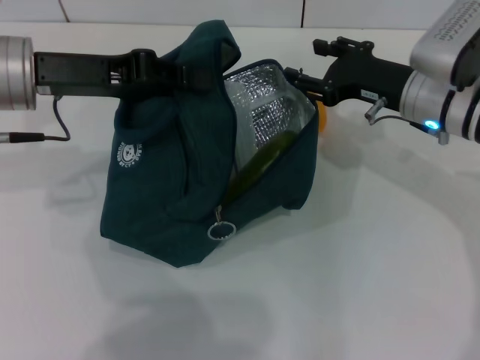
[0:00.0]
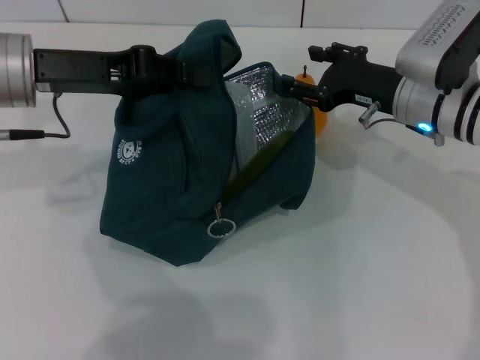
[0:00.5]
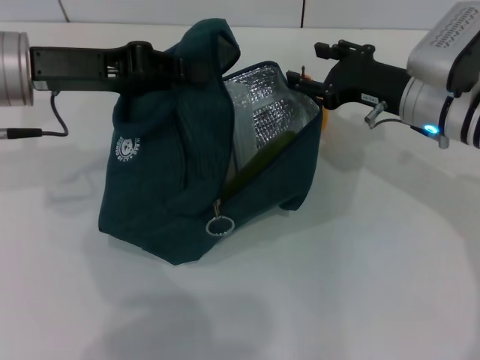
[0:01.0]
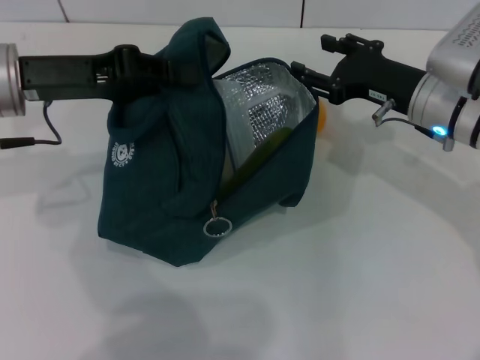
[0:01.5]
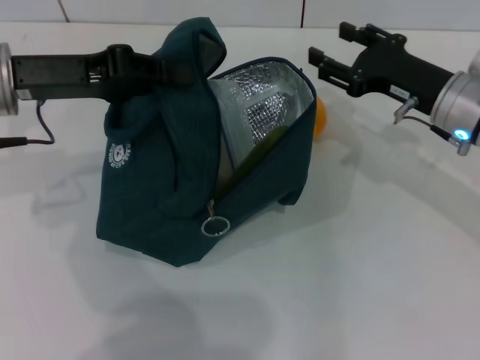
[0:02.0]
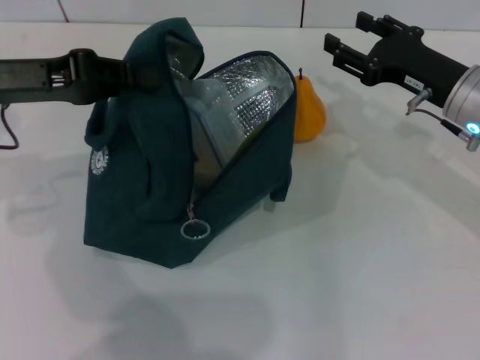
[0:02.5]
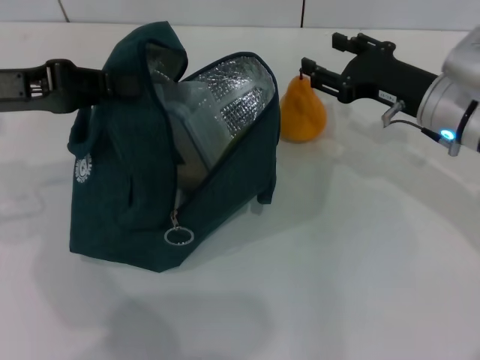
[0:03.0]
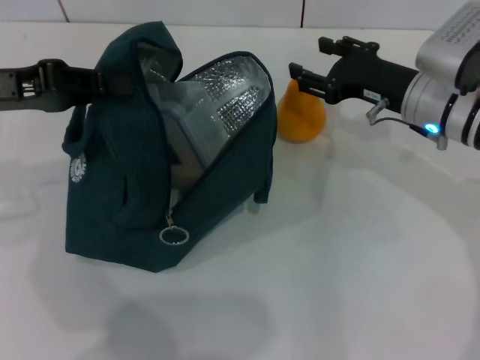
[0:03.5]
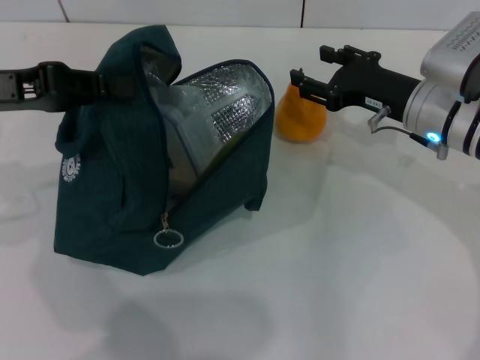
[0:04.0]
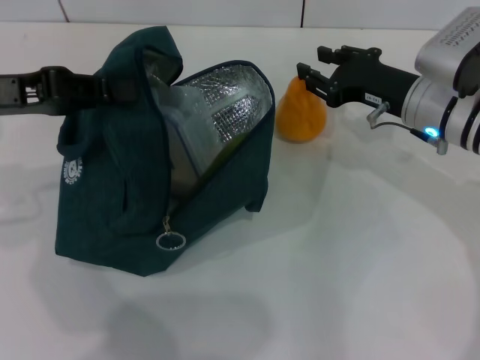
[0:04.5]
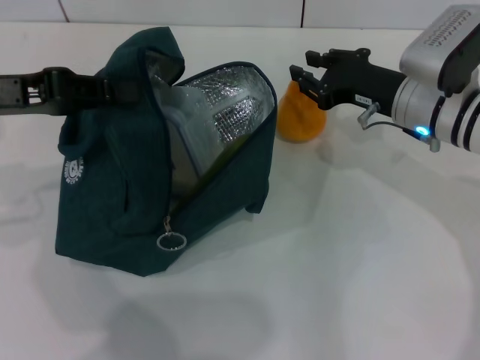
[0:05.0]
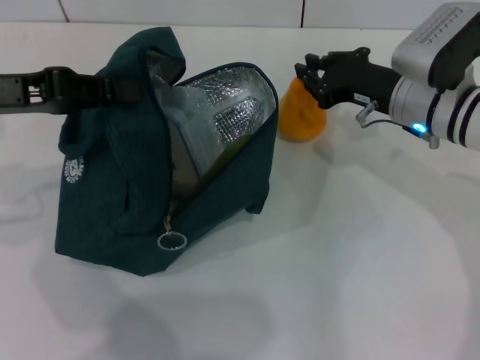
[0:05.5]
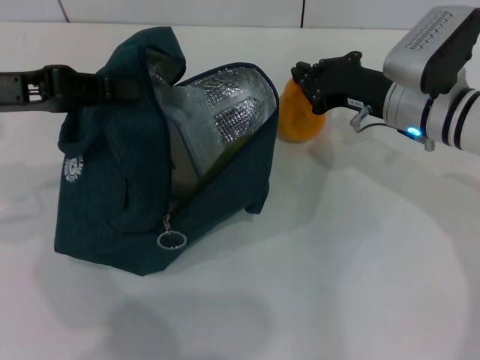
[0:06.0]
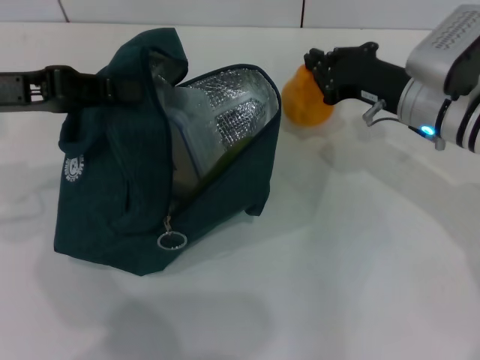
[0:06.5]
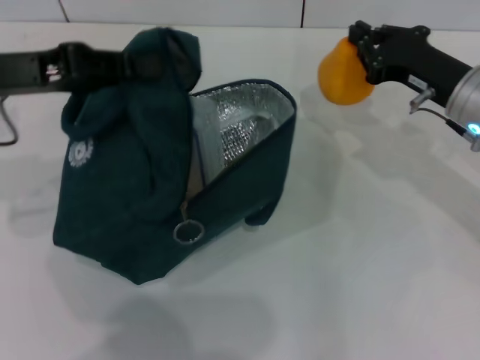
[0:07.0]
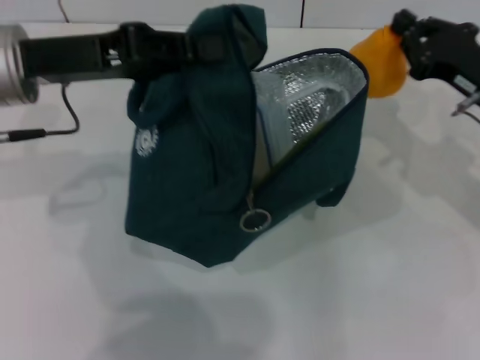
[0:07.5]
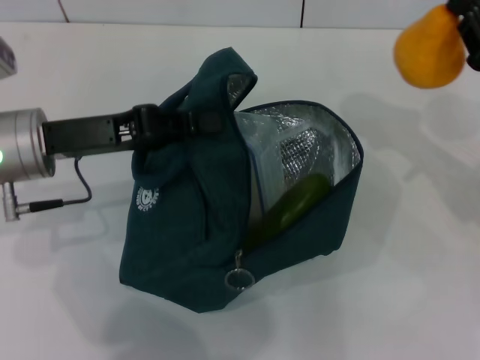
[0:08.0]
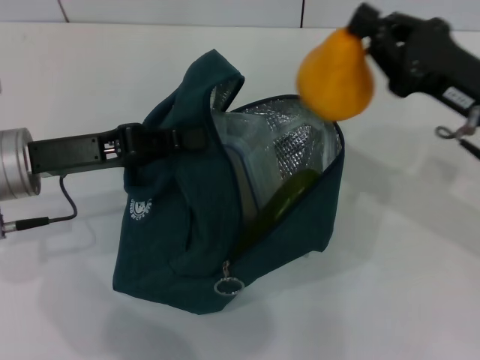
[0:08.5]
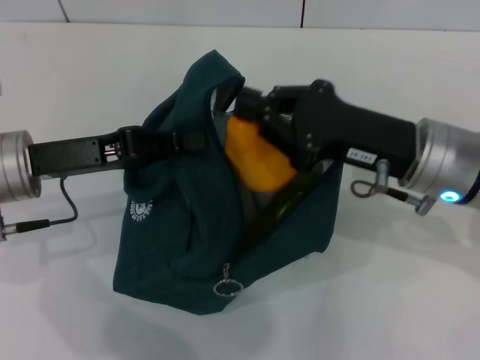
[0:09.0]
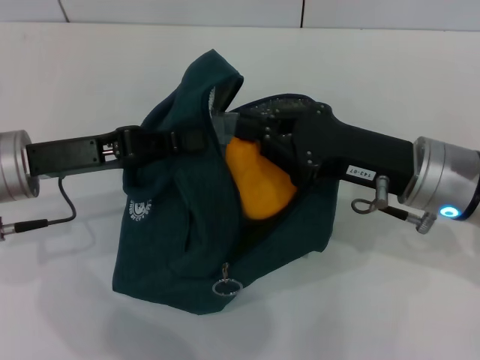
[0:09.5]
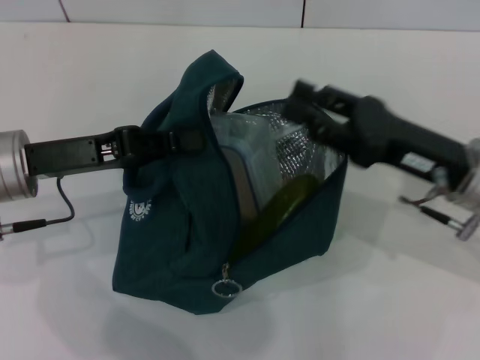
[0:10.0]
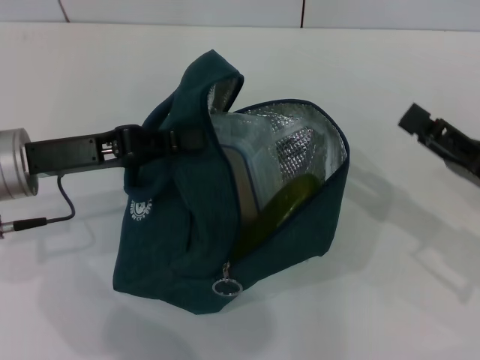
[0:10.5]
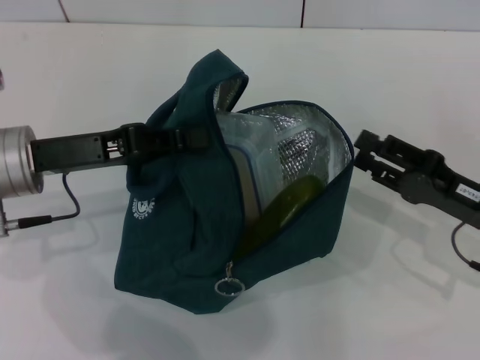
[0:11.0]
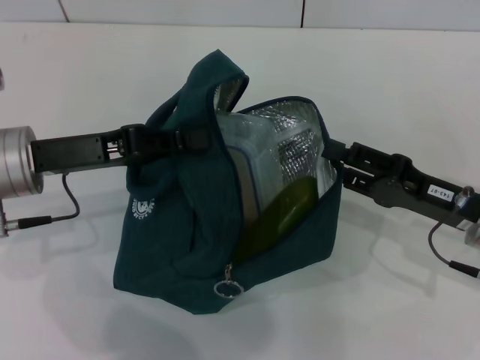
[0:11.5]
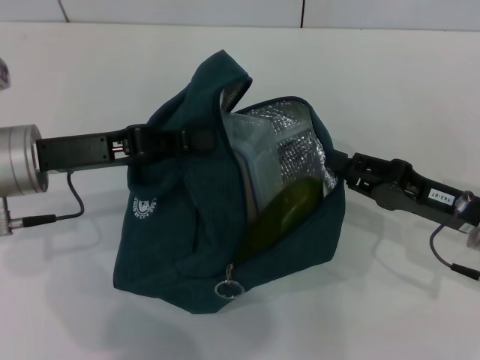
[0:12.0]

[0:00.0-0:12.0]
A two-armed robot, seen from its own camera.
Step, 0:00.0 to 0:06.0: Grab the pear with your right hand.
Step, 0:06.5 to 0:09.5: Secure the lunch bag with your left hand.
0:00.0 to 0:02.0: The grippers make only small movements.
0:02.0 to 0:04.0: The left gripper ends up about 5 cm from where it was.
0:04.0 to 0:06.0: The right gripper closes its fingers.
0:06.0 to 0:08.0: The left gripper goes about 10 cm to the right and downward. Meanwhile the right gripper heads to the right and backward, covering roughly 15 cm.
0:08.0 to 0:10.0: The right gripper travels to the left by approximately 10 cm.
0:10.0 to 0:12.0: The right gripper moves downward, some 5 cm.

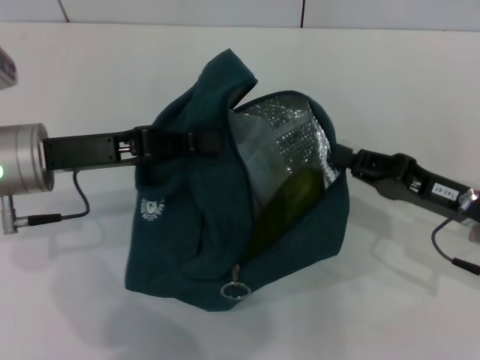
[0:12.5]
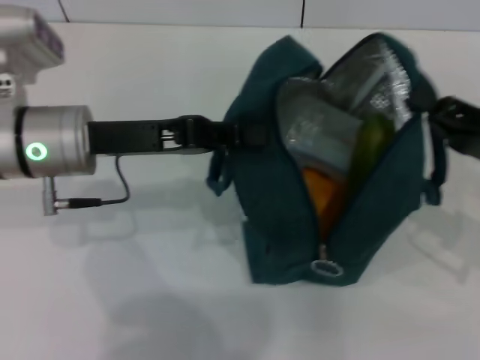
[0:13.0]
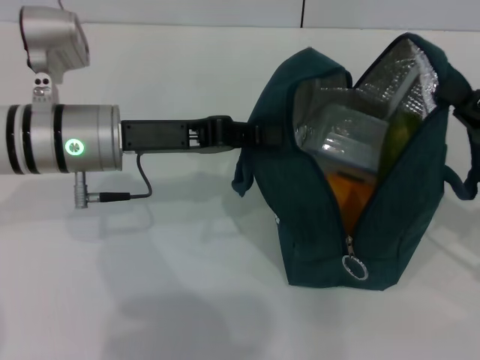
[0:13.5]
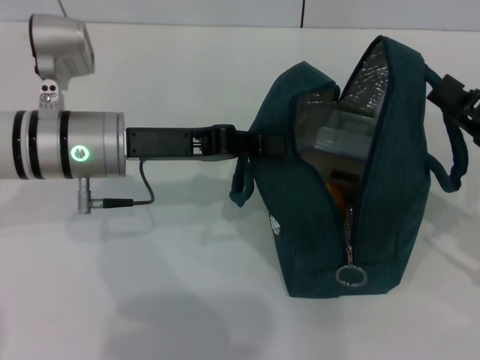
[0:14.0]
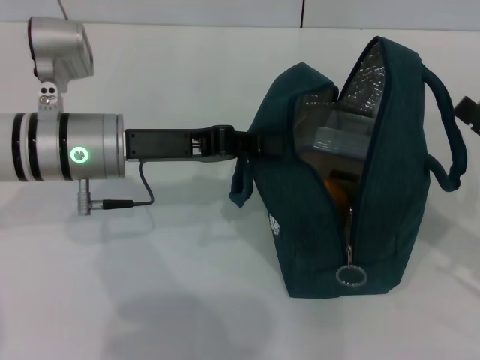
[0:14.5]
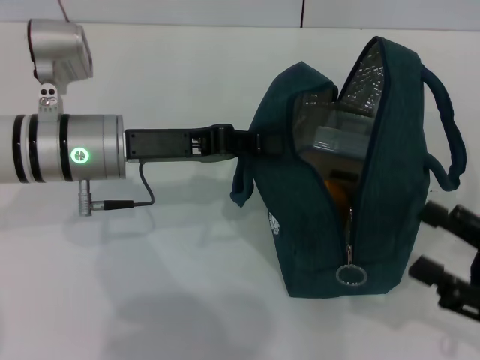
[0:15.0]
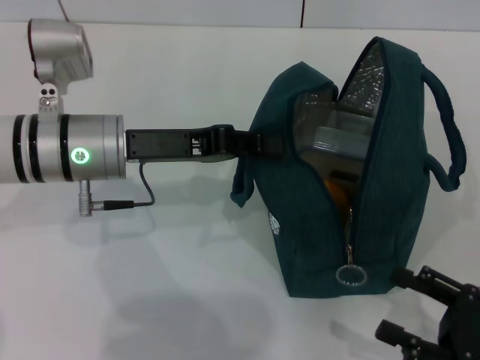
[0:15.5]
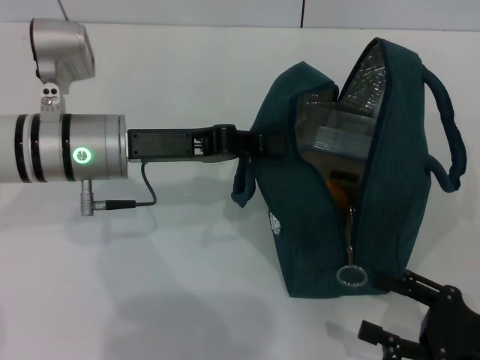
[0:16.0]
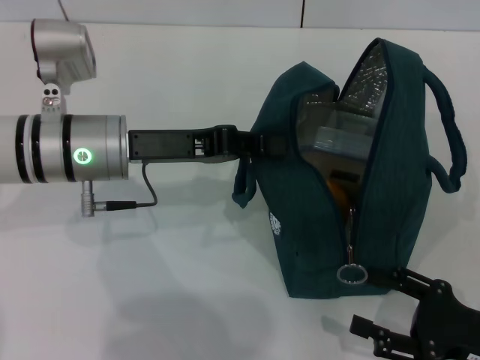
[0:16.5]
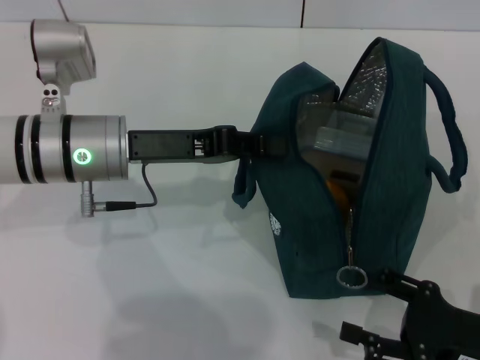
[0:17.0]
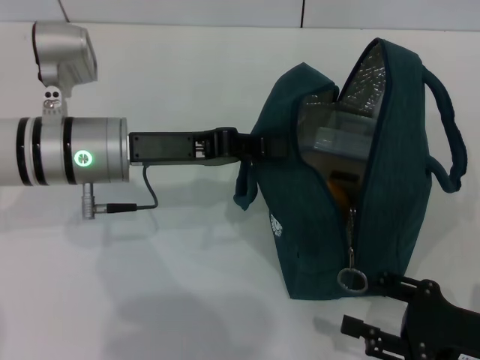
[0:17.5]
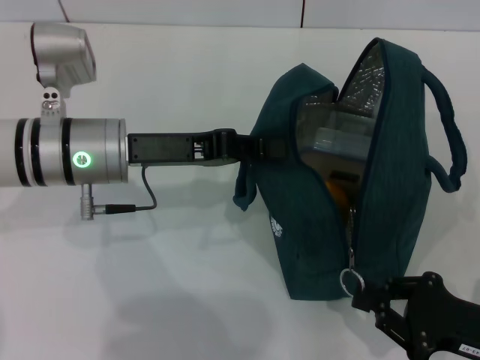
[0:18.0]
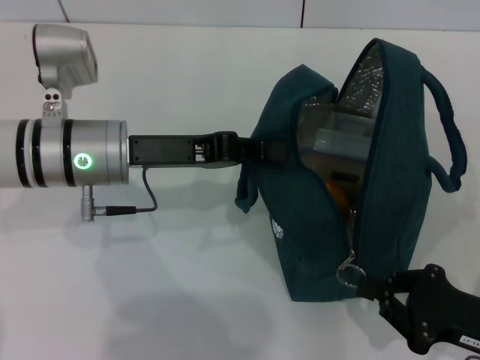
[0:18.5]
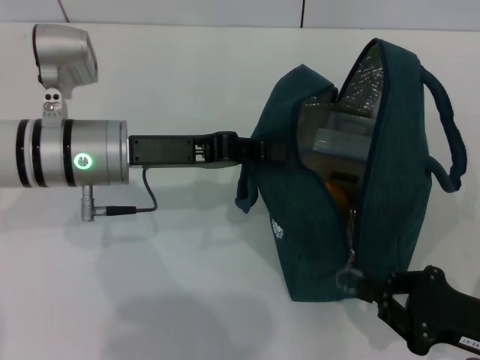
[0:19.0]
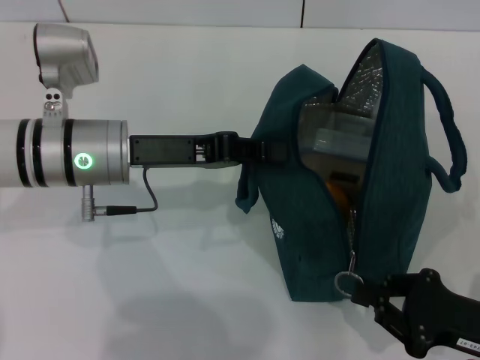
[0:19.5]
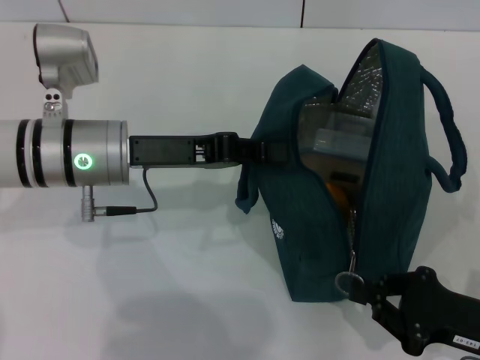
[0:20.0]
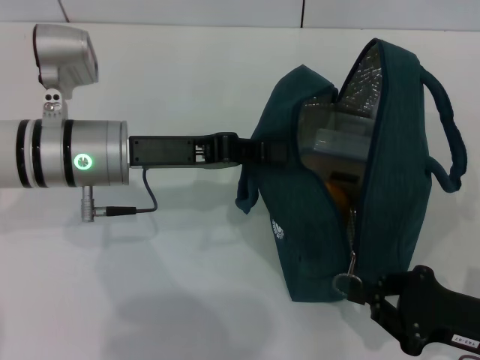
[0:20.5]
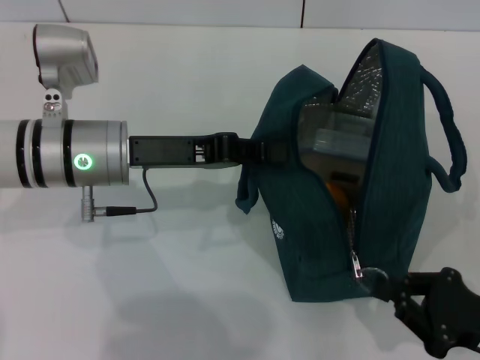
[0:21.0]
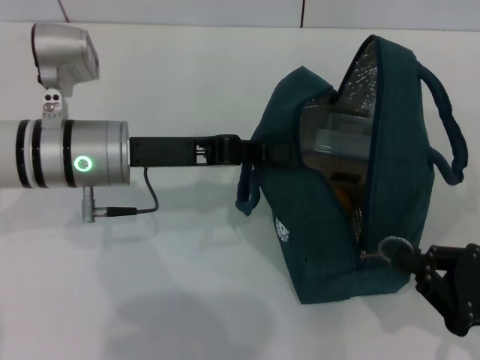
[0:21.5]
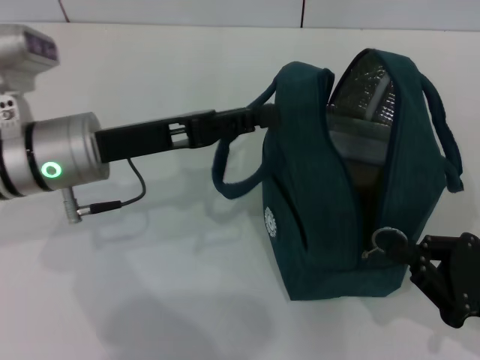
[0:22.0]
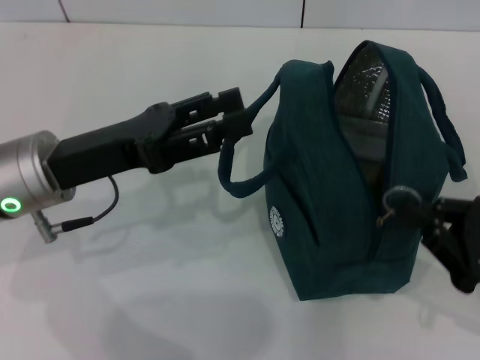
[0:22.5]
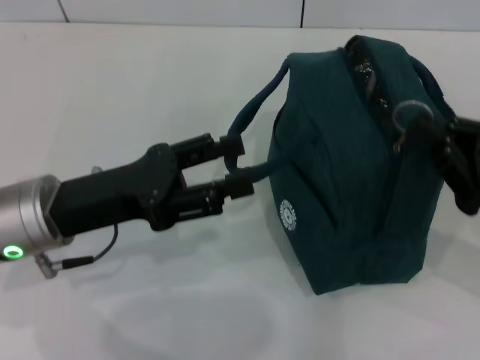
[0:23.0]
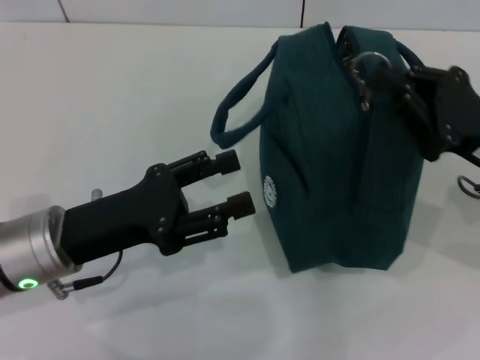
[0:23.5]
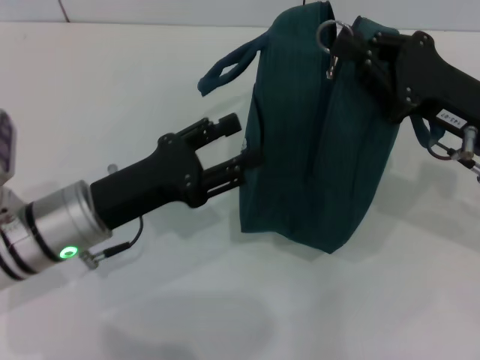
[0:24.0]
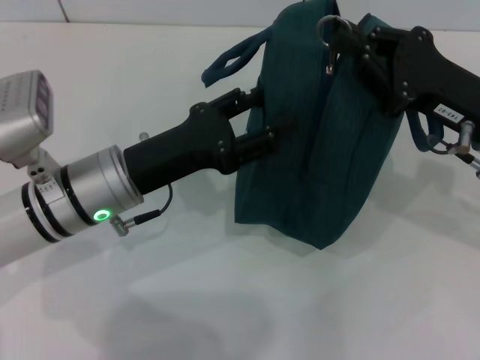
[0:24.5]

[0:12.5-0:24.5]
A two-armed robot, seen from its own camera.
Step, 0:14.5 to 0:22.0: Hold the lunch bag with your left hand.
0:12.5 to 0:14.5: Both grippers travel together to the right, approximately 5 cm. The right gripper opens up.
0:14.5 to 0:16.5: The right gripper travels downward and backward by some 10 cm.
0:16.5 to 0:18.5: The right gripper closes up.
0:18.5 to 0:20.5: Both grippers stay put.
0:20.5 to 0:22.5: The left gripper changes place by some 5 cm, and opens.
0:22.5 to 0:24.5: The right gripper goes about 15 cm forward, upward and to the left. The left gripper moves approximately 5 cm.

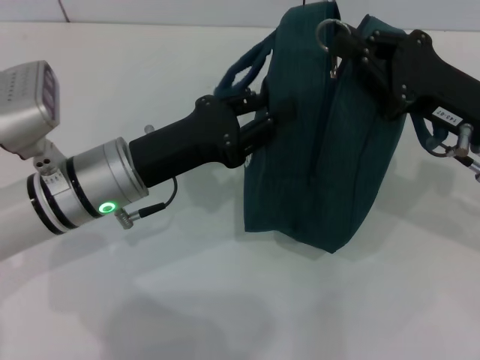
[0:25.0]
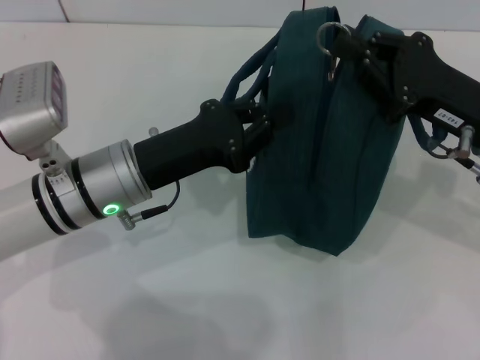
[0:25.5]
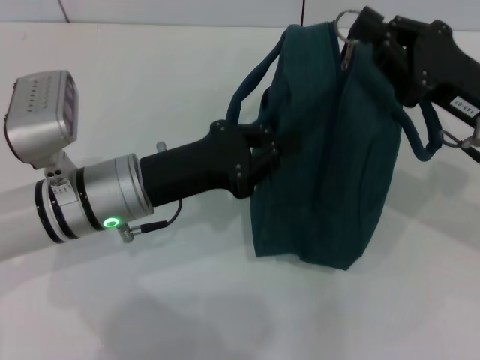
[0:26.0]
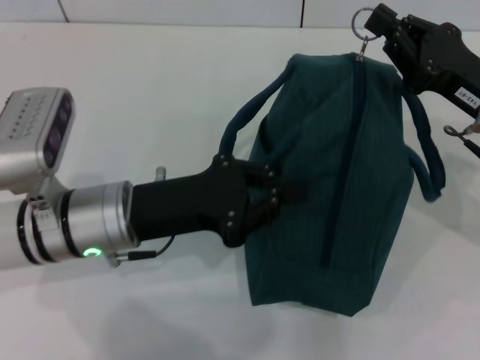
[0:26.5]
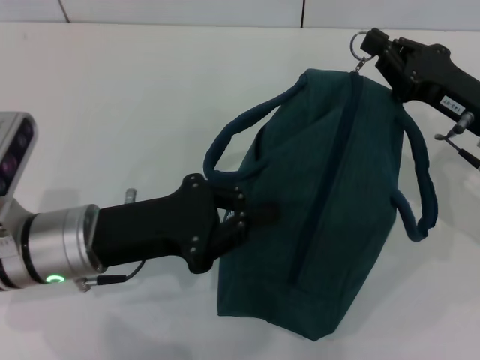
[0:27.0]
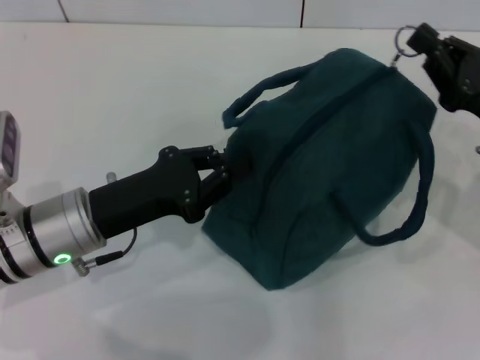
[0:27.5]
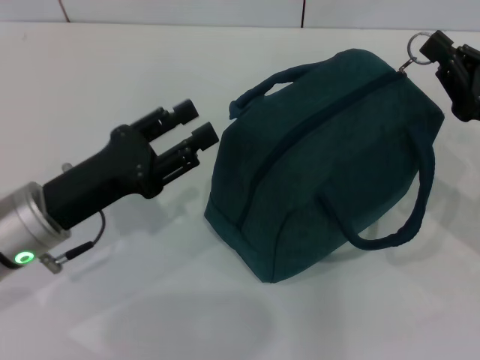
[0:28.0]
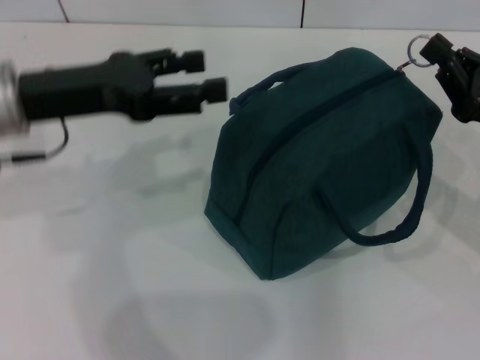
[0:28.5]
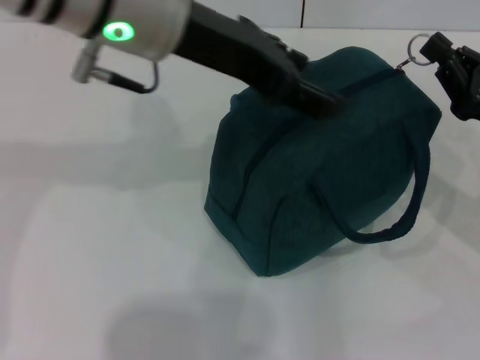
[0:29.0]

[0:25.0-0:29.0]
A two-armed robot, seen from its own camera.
0:25.0 to 0:27.0: The left gripper ends up approximately 5 cm from where it was, and closes.
0:27.0 to 0:29.0: The left gripper heads upward and to the right, covering roughly 20 cm, and opens, while the right gripper ends up approximately 5 cm from where it was.
